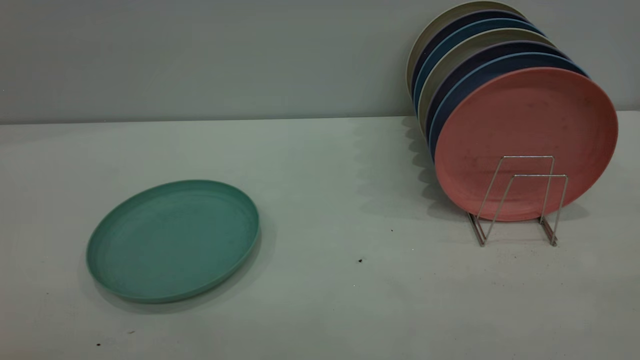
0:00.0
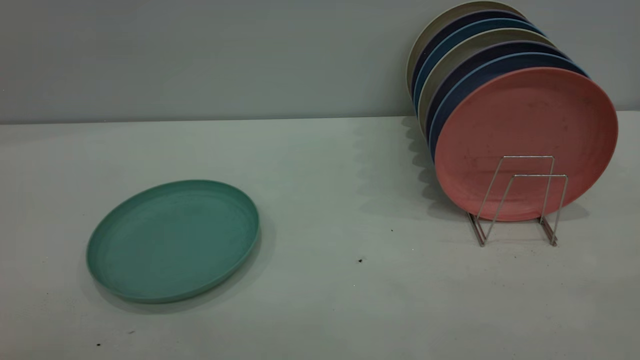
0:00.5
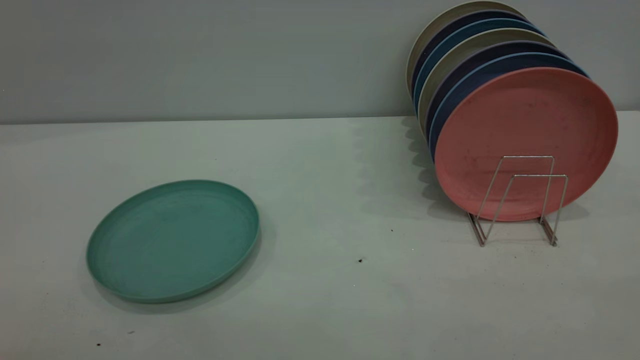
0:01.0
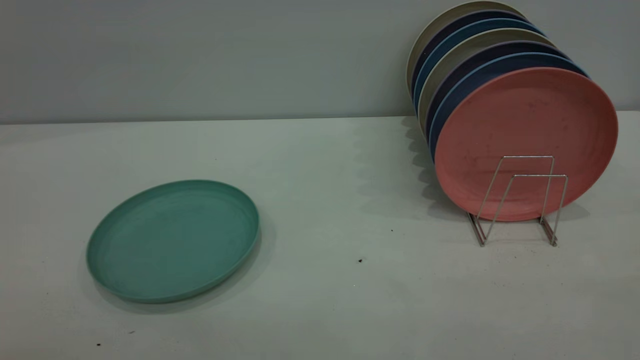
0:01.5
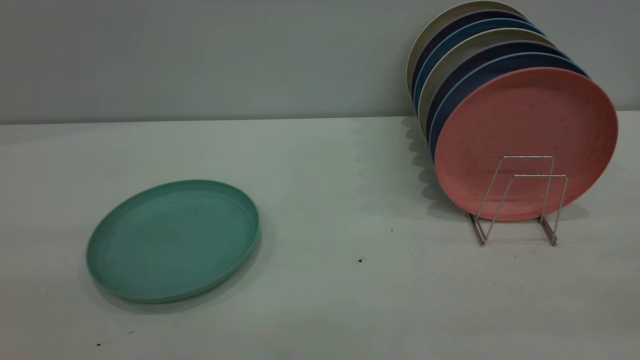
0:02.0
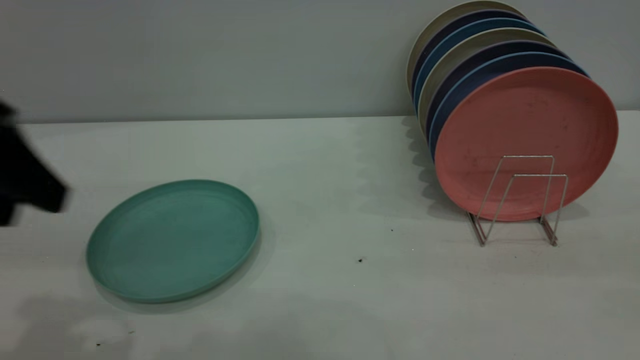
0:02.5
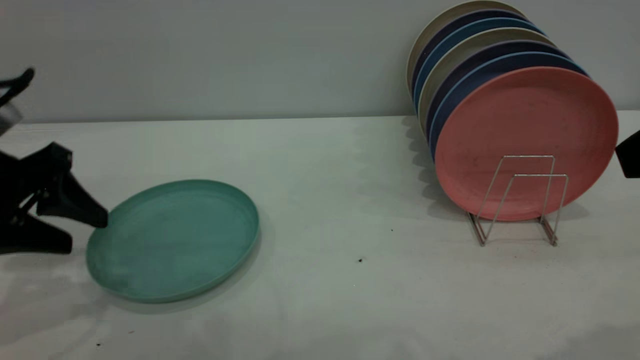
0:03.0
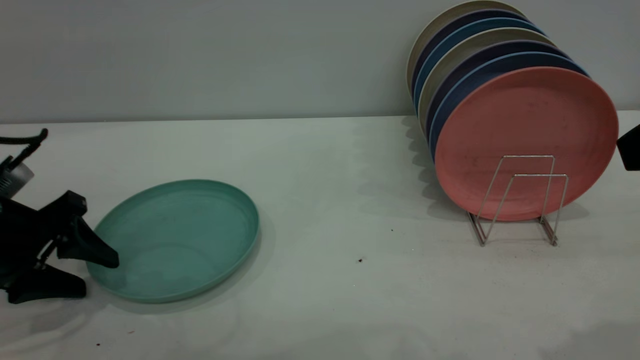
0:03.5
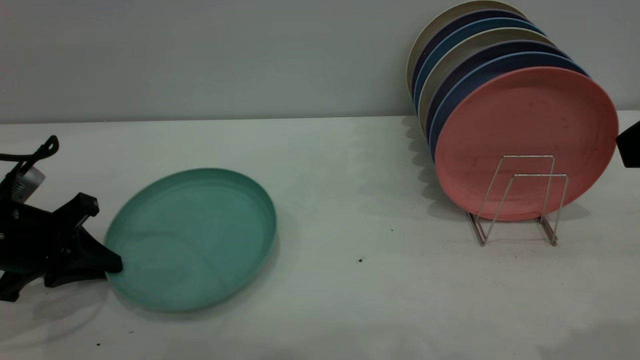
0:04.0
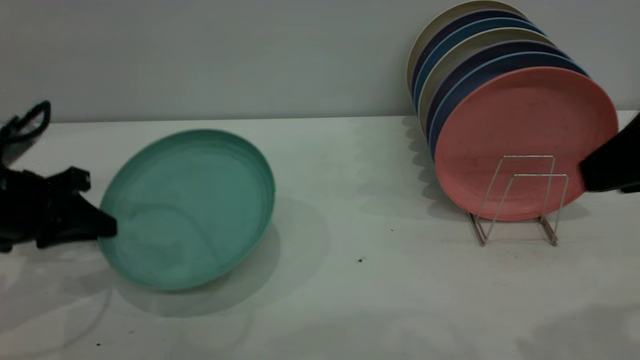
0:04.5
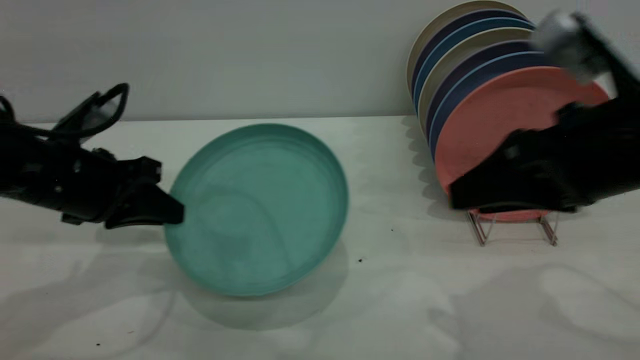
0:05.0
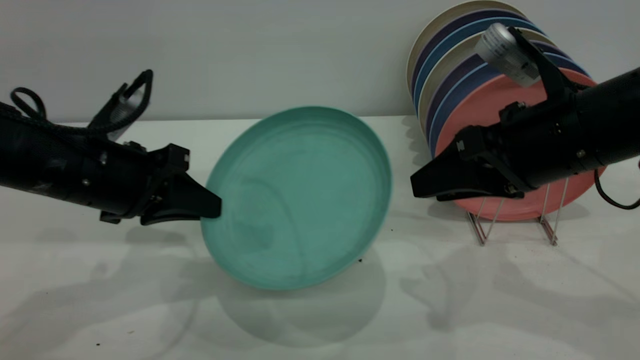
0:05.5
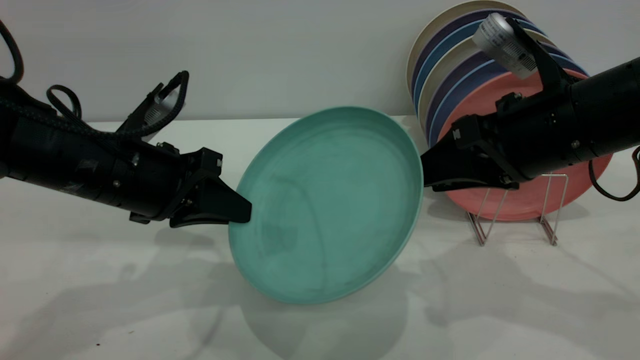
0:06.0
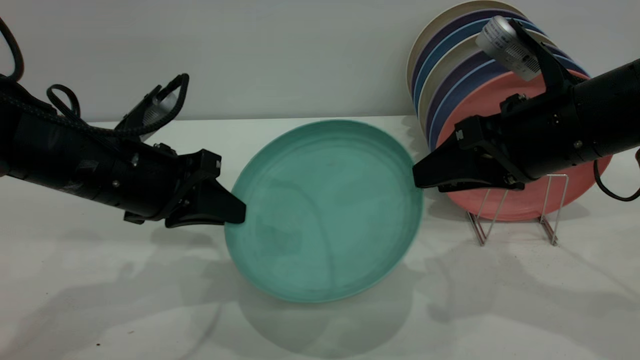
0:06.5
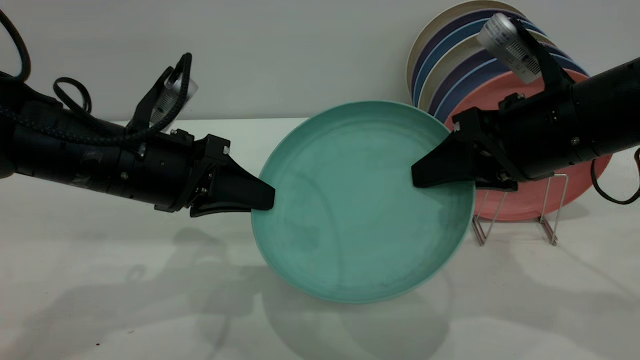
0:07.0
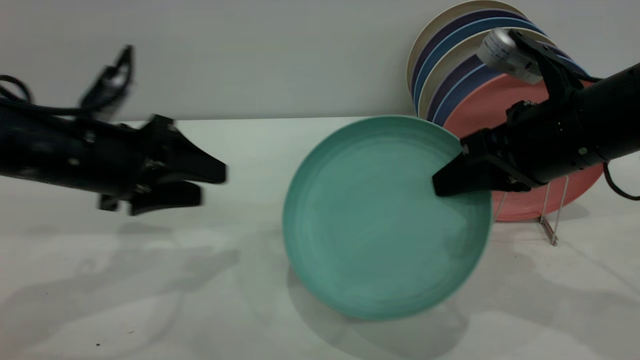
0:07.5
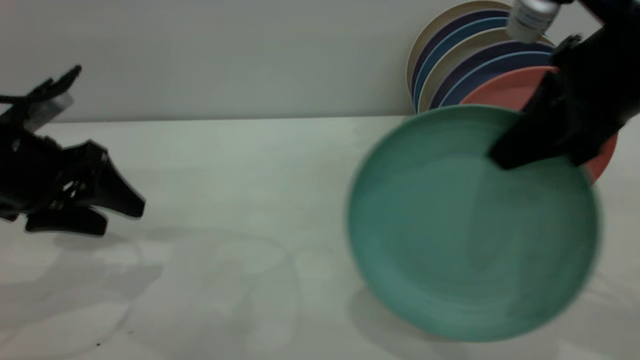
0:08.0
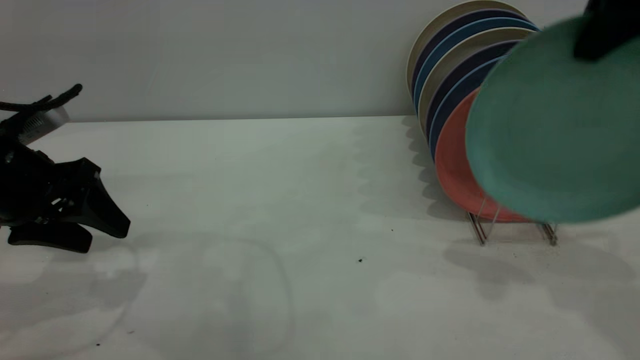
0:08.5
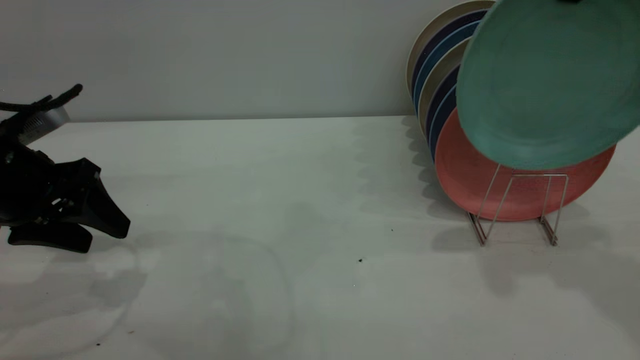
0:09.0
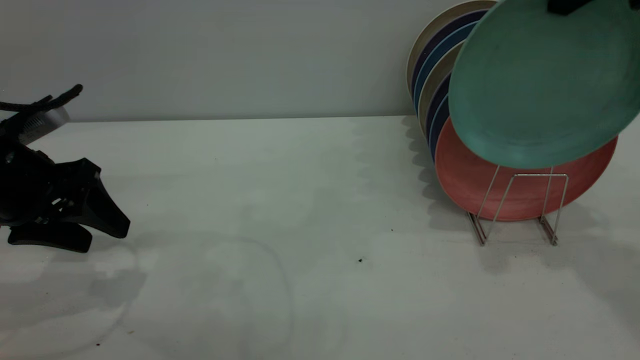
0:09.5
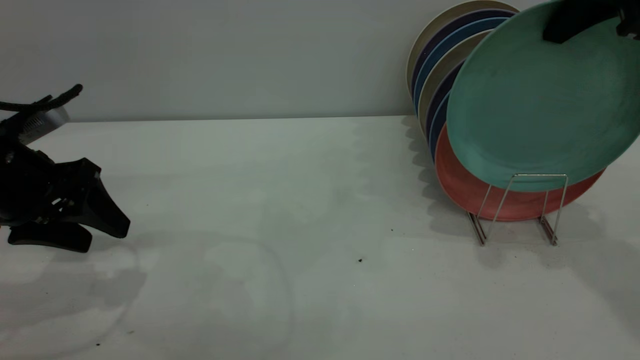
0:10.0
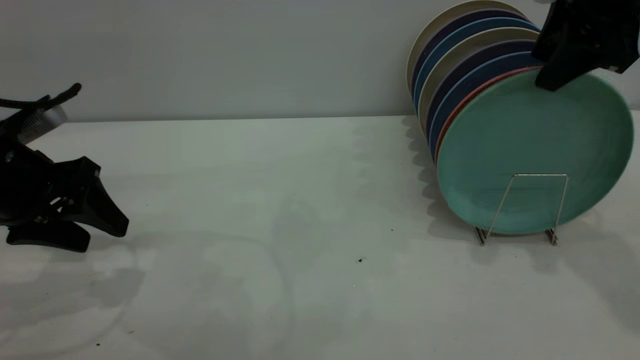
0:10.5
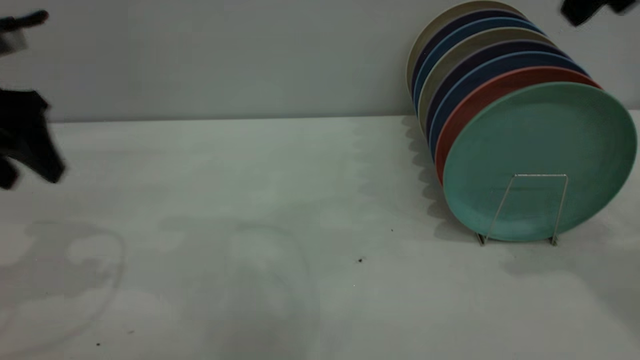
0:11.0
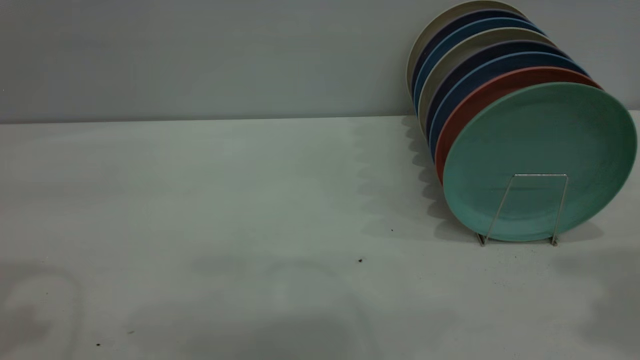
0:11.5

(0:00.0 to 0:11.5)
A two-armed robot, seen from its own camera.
Task of the whole recording: the left gripper grasp the green plate, the left gripper pass the green plate to the right gripper, and the right gripper place the green plate on the plate rack.
Step, 0:00.0 - 0:04.5: Pick up the plate with the left gripper.
Step, 0:05.0 - 0:07.5: Pass the plate from the left gripper to the right gripper.
Step, 0:08.0 - 0:10.5: Place the plate on the shelf.
0:02.0 - 0:04.0: The left gripper goes roughly 35 cm downward and forward, and closes its fingers; the right gripper shifts some 15 cm forward and downward.
0:04.0 - 0:06.0: The right gripper is displaced forward, downward and to the left by roughly 20 cm. Meanwhile the left gripper is displaced to the right and upward by approximately 15 cm.
0:06.0 - 0:07.5: The right gripper closes up. Meanwhile the left gripper opens up.
0:07.5 - 0:09.5: The left gripper goes some 5 cm to the left, while the right gripper goes approximately 15 cm upward.
0:09.5 - 0:11.5: The left gripper is displaced upward by approximately 20 cm, while the right gripper shifts some 15 cm backward and upward, and opens up.
